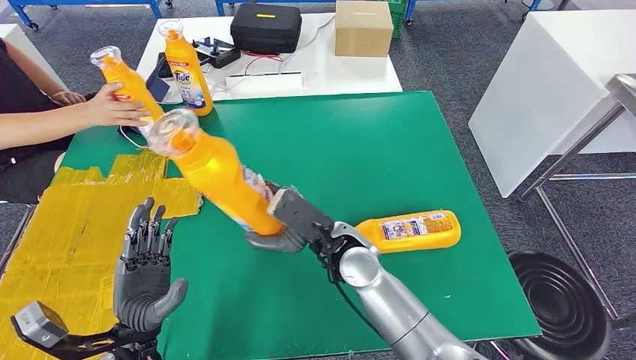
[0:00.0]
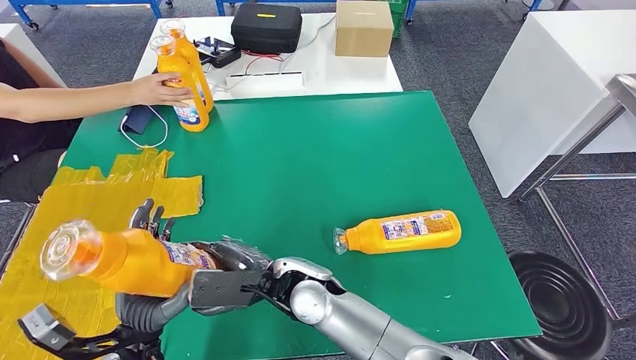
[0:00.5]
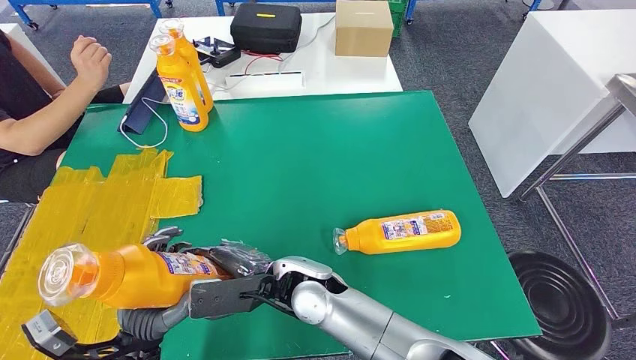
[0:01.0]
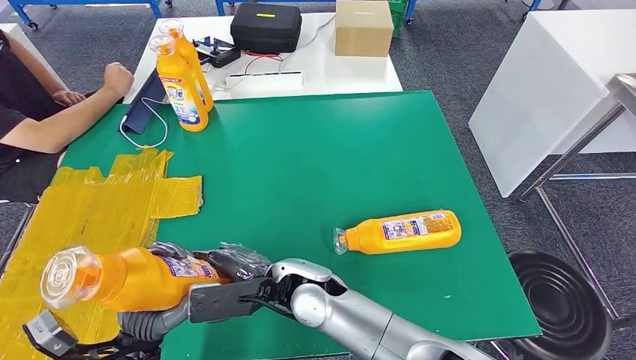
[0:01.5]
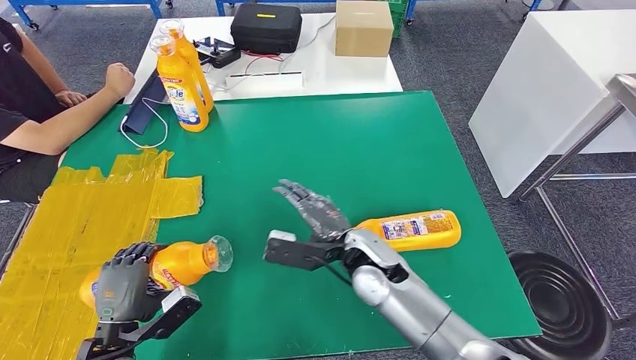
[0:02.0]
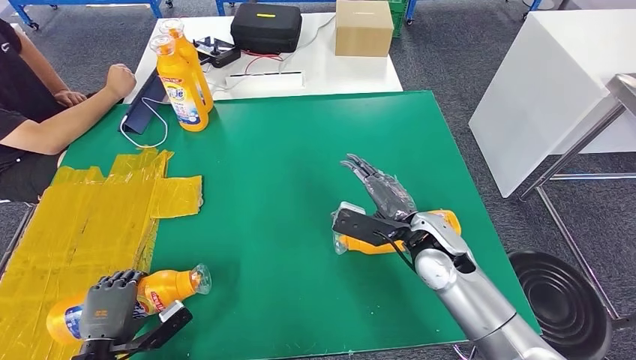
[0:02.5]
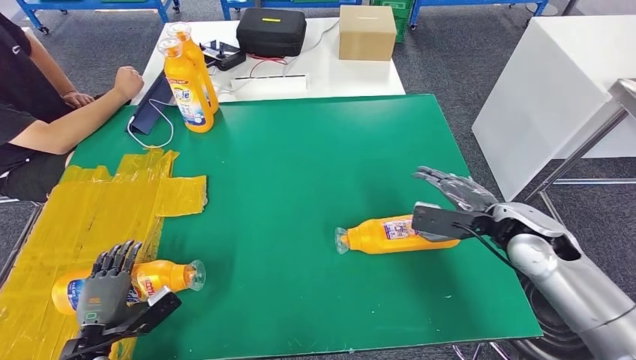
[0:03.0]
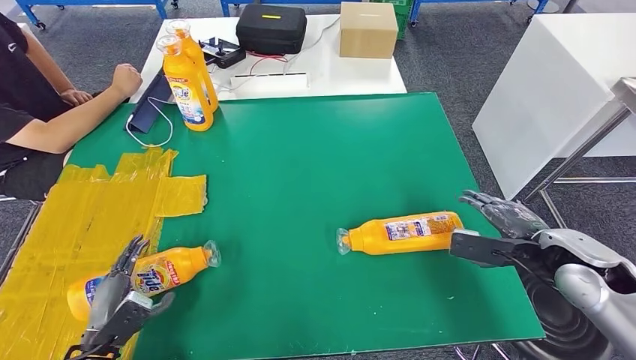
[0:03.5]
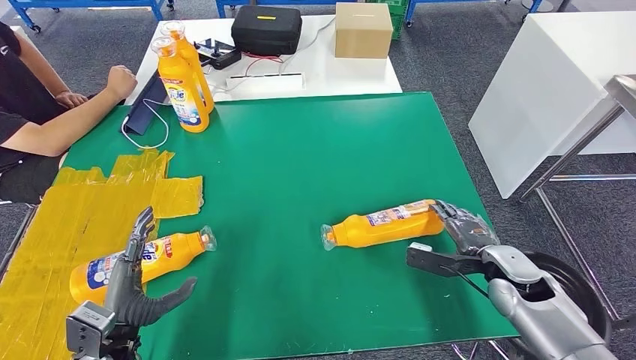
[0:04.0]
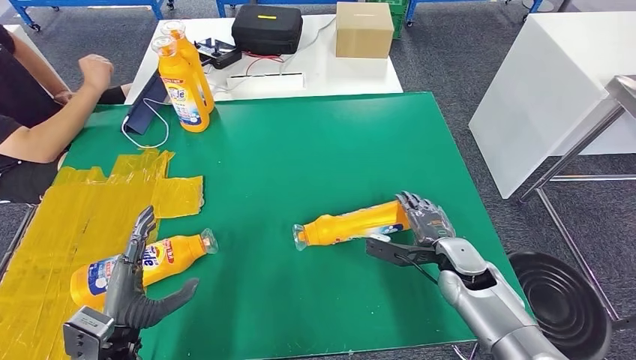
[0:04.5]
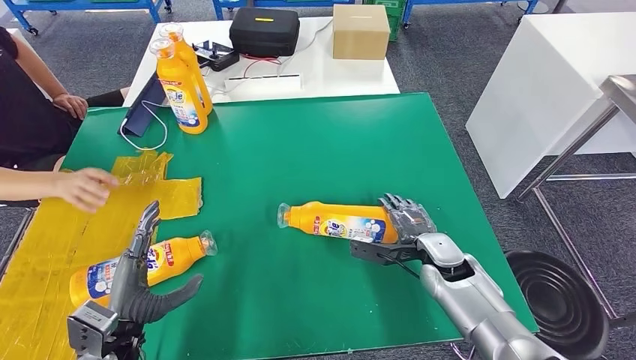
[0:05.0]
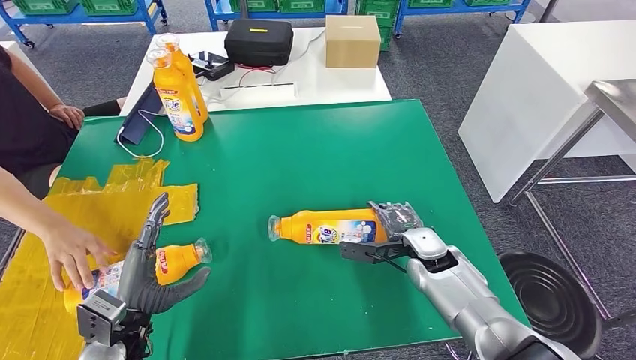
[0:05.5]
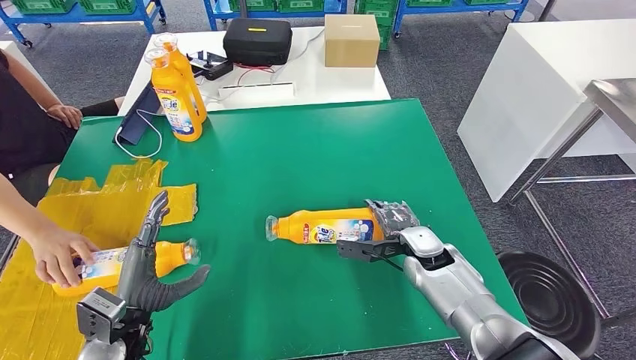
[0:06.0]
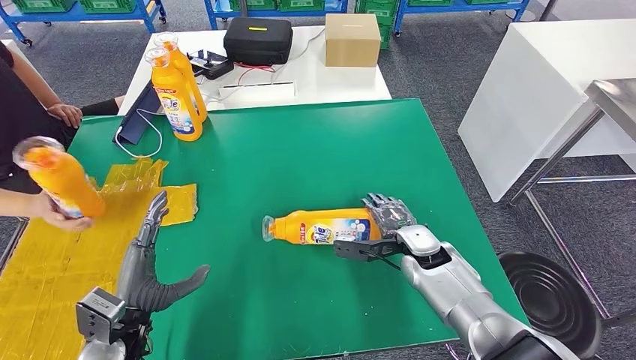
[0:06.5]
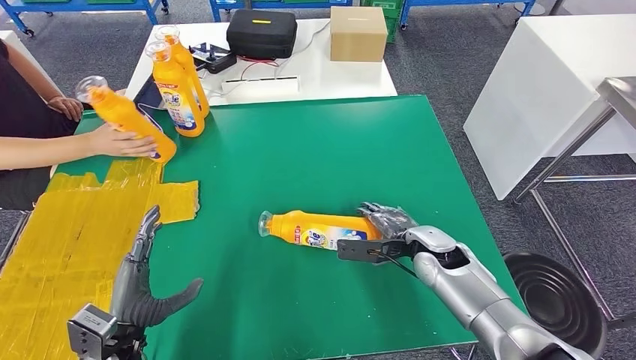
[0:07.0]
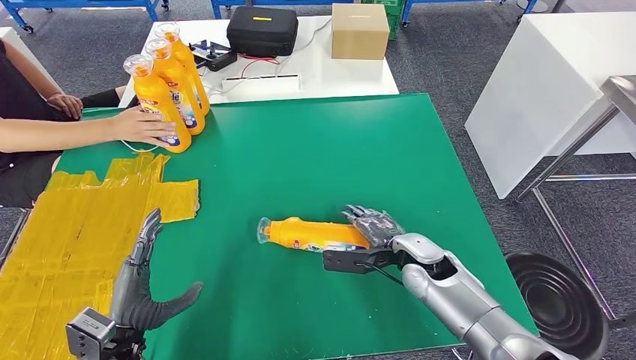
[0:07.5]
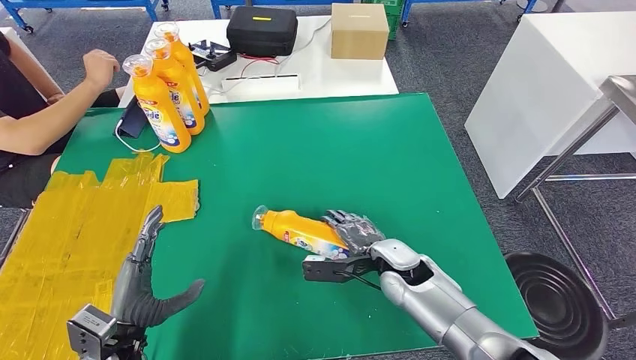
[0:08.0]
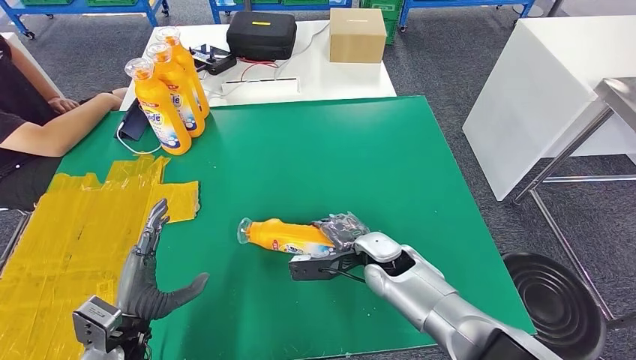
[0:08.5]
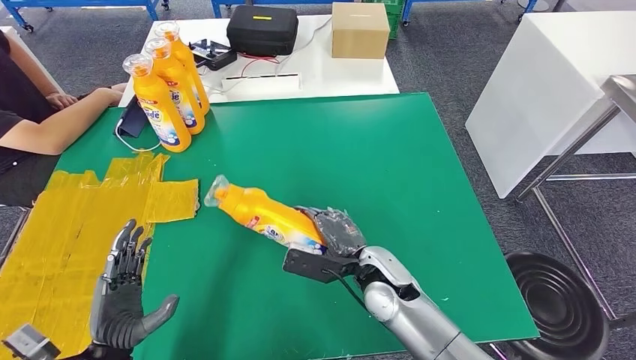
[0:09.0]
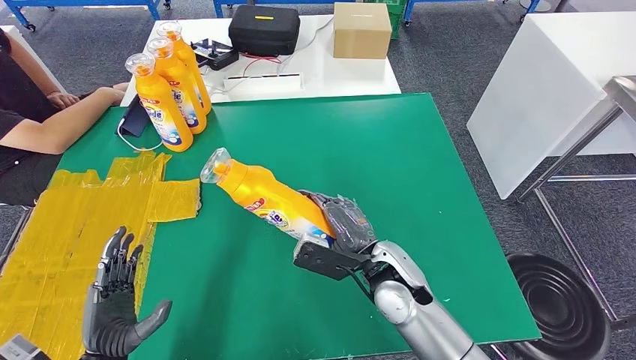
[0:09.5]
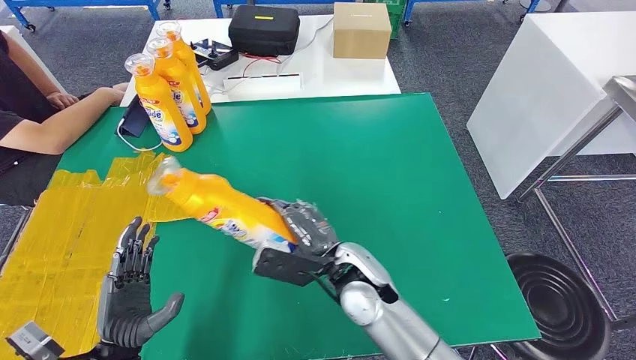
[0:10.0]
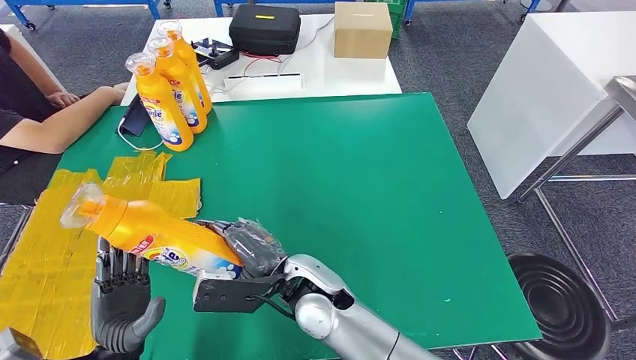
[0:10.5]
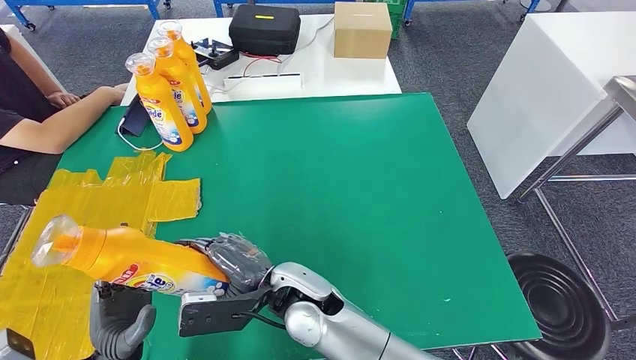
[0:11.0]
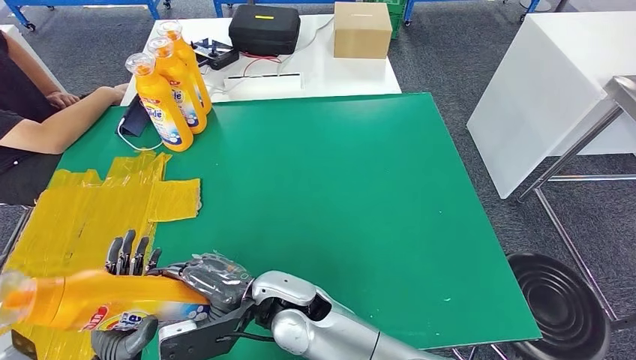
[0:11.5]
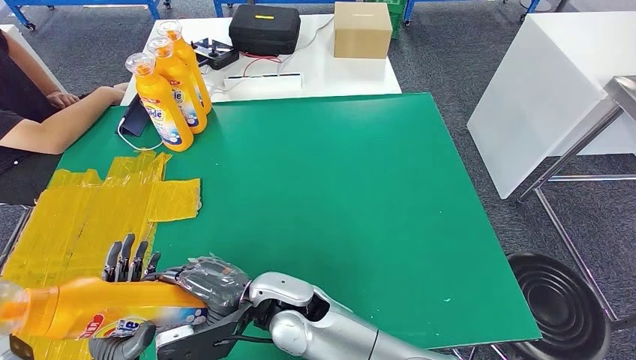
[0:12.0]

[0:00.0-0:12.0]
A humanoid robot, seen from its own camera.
Step, 0:00.0 to 0:04.0: Flip the fast-moving consumer goods bottle to the front side.
Step, 0:04.5 to 0:10.5: Pick up the fast-moving consumer goods bottle from the table.
0:00.0 to 0:02.0: The left hand heads to the left, covering approximately 5 cm. The right hand moves roughly 10 cm to the left and comes back.
0:10.0 to 0:12.0: The right hand shifts roughly 10 cm to the left.

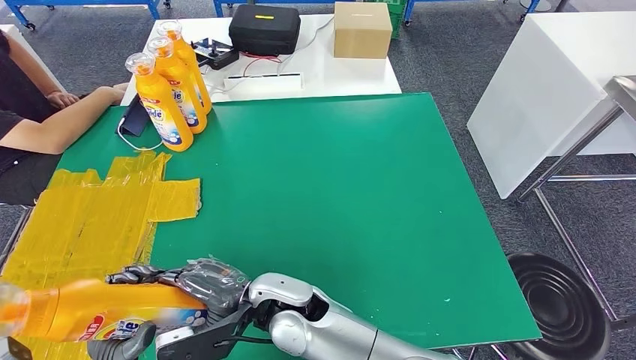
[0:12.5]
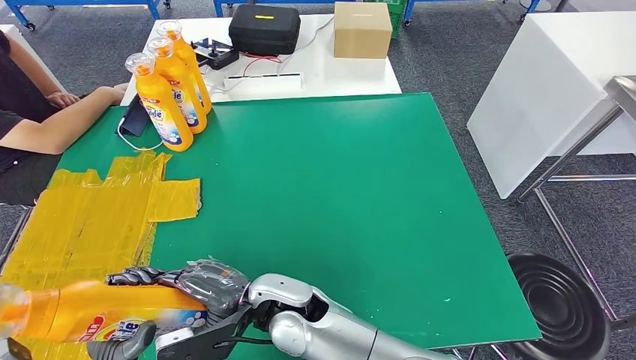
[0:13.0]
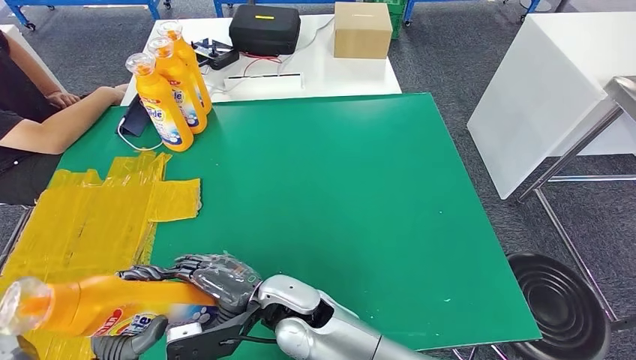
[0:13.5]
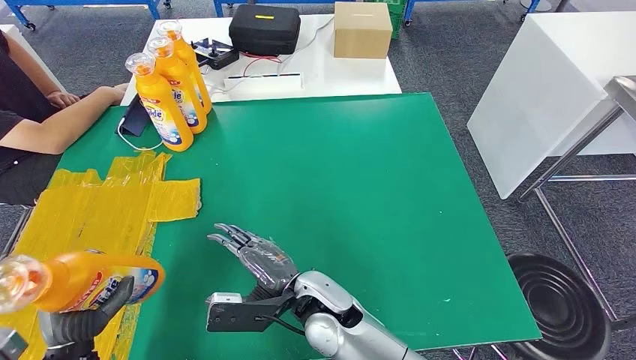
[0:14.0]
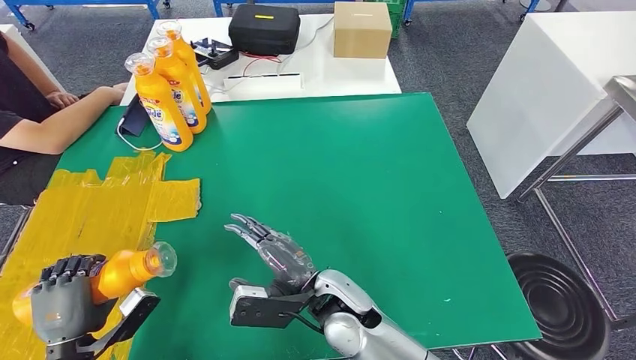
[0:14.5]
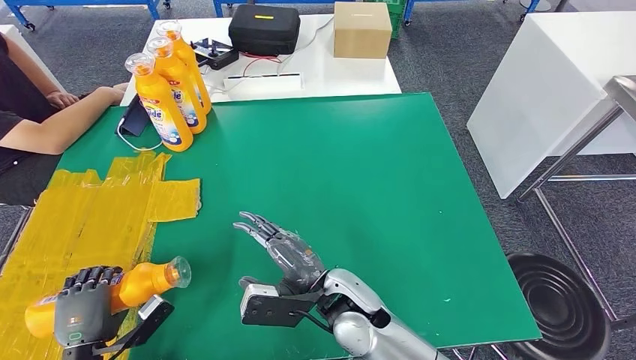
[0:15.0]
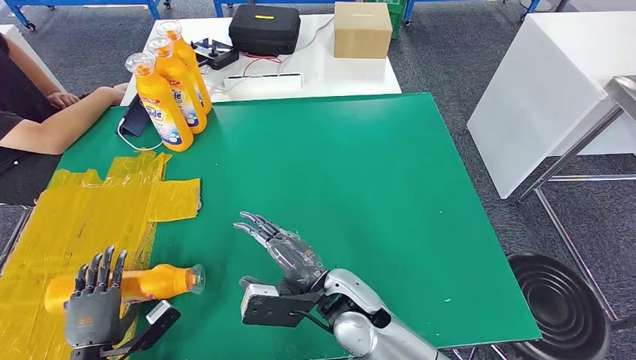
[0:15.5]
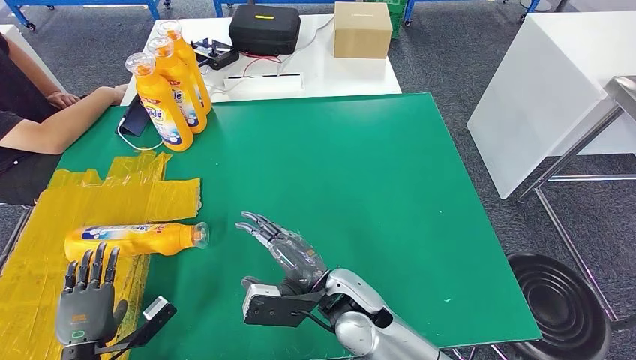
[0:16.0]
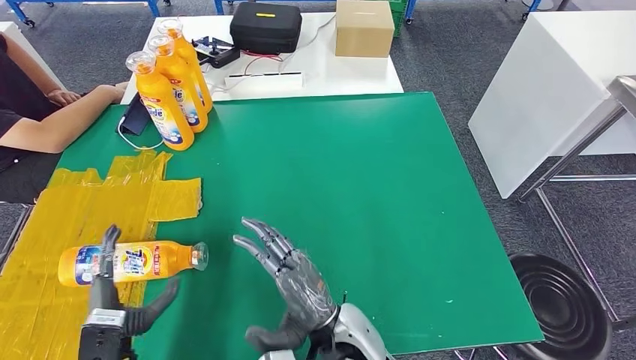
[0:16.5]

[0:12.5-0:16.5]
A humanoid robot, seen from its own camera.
Step, 0:12.5 to 0:16.5: Flip the fast-moving consumer goods bottle to the front side.
0:12.5 to 0:14.5: The left hand goes some 10 cm to the left; the right hand is displaced to the right by some 10 cm.
0:14.5 to 0:16.5: The right hand shifts about 5 cm backward, while the left hand shifts about 5 cm to the right.

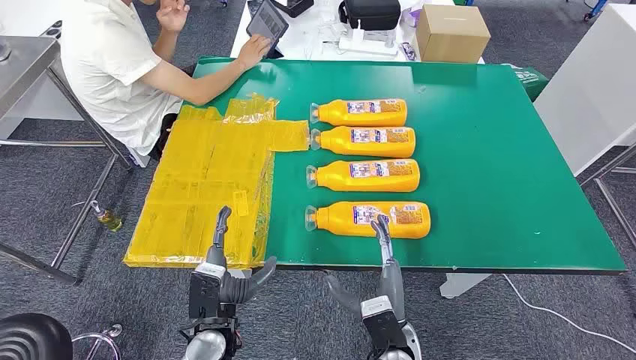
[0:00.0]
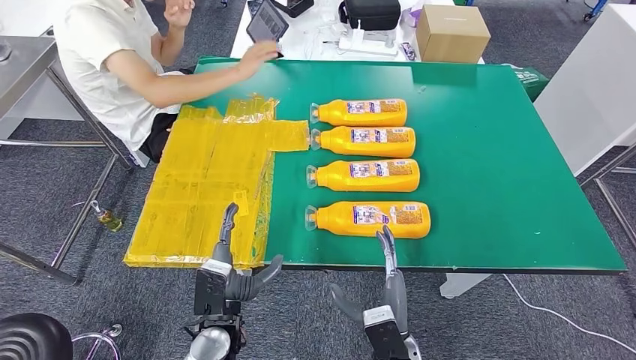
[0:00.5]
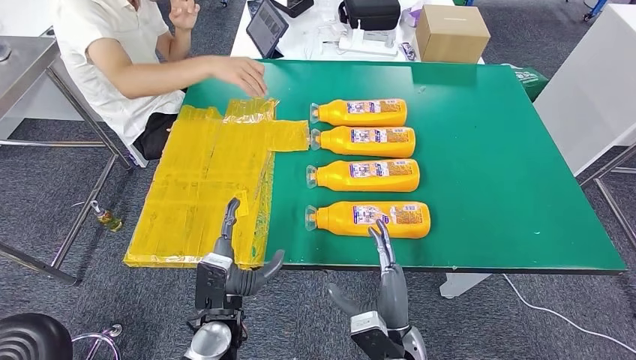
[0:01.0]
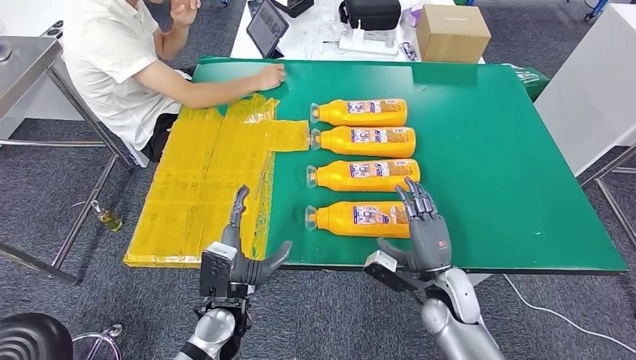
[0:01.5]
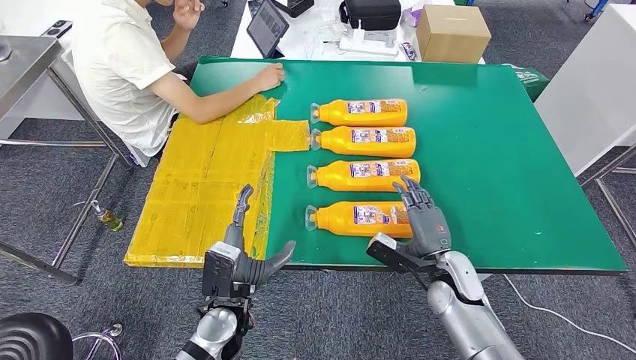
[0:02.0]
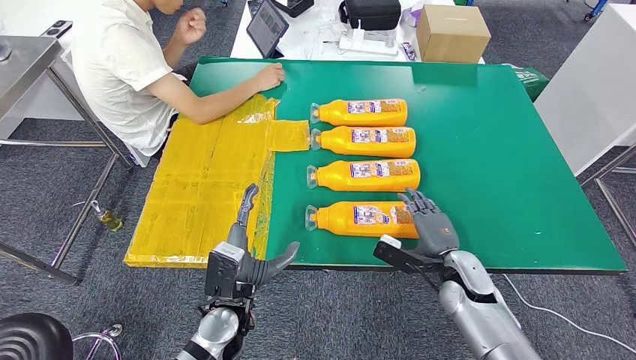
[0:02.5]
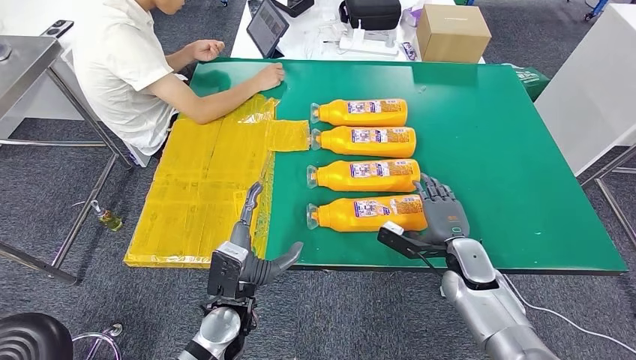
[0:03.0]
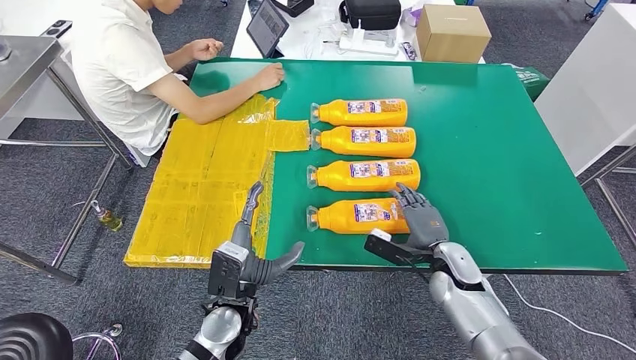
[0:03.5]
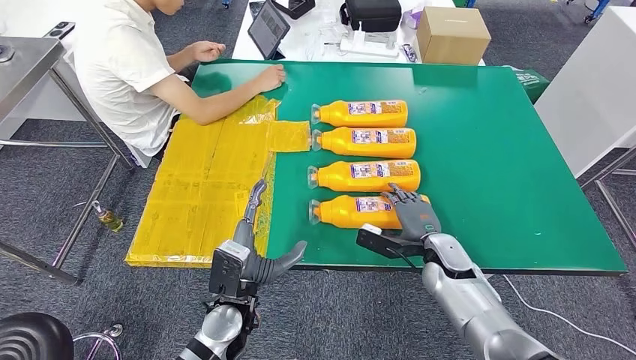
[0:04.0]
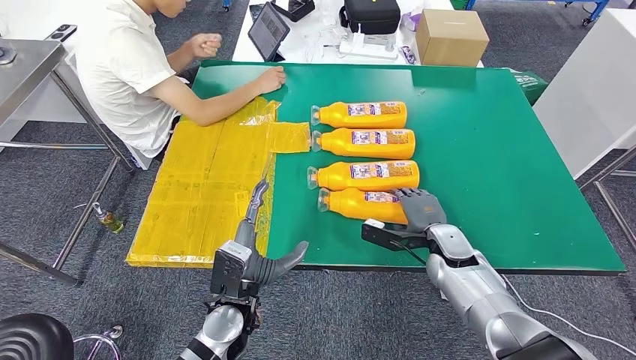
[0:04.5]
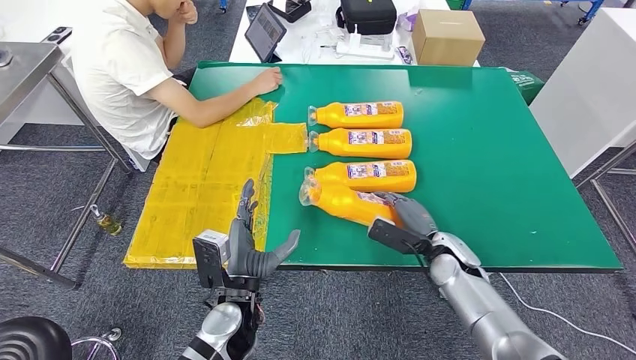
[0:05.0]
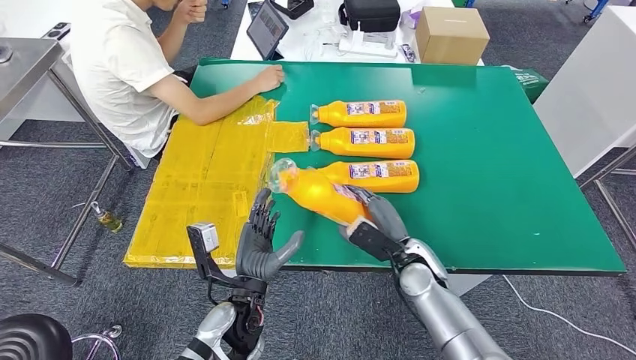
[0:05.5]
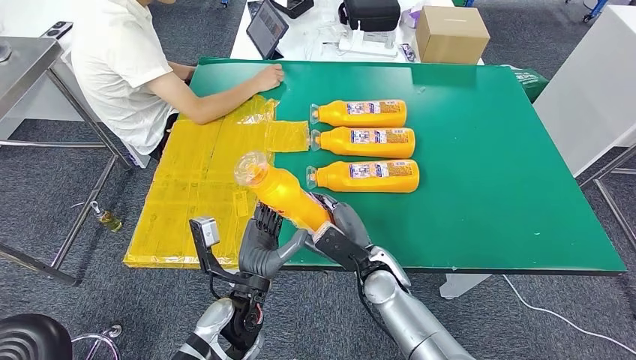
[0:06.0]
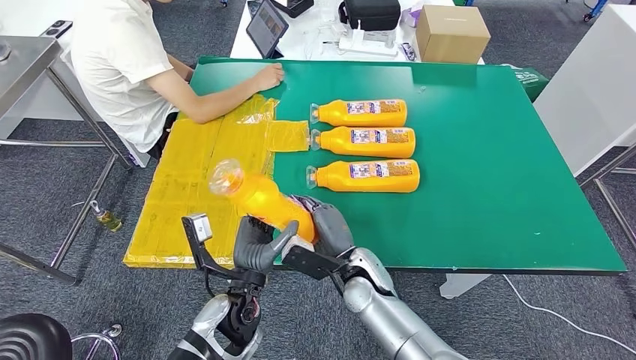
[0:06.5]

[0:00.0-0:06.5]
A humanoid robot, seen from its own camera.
Step, 0:00.0 to 0:05.5: Take the fast-moving consumer goods bottle from the table.
0:02.0 to 0:04.5: The right hand shifts roughly 5 cm forward.